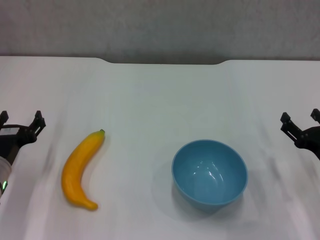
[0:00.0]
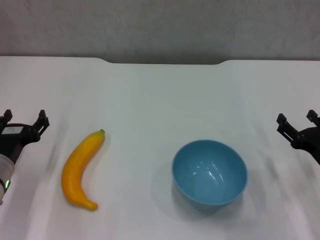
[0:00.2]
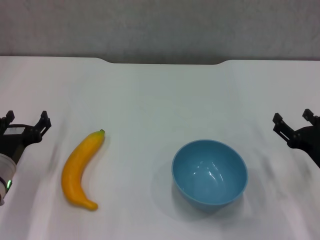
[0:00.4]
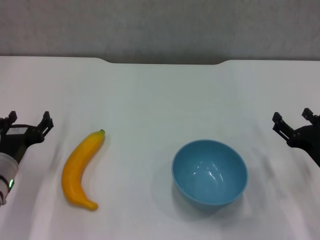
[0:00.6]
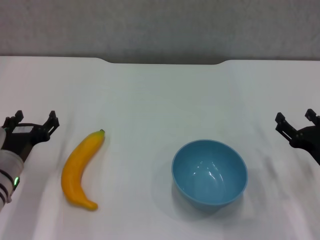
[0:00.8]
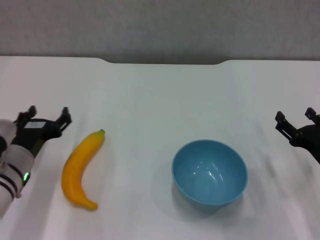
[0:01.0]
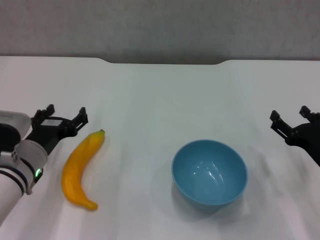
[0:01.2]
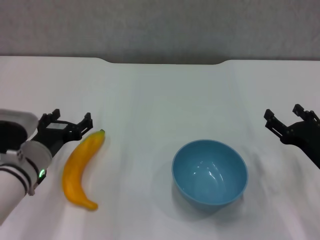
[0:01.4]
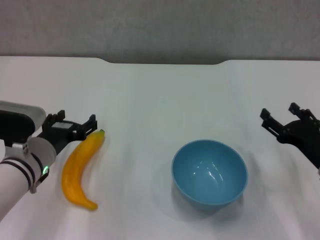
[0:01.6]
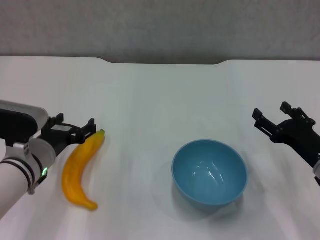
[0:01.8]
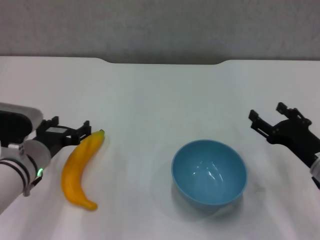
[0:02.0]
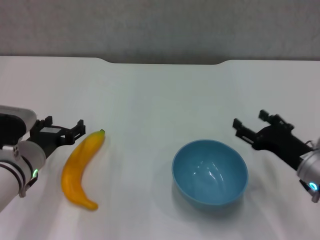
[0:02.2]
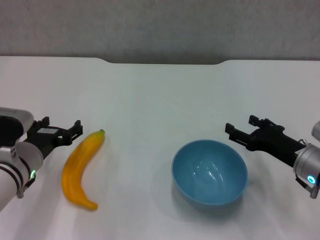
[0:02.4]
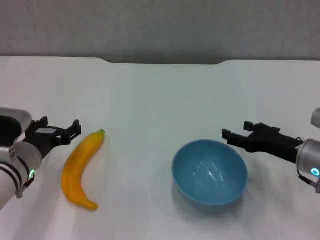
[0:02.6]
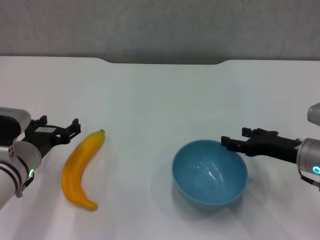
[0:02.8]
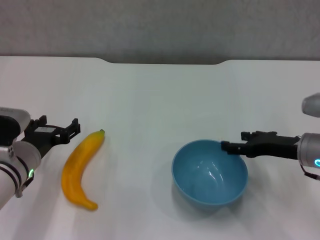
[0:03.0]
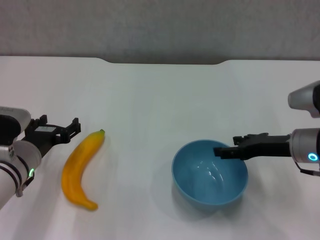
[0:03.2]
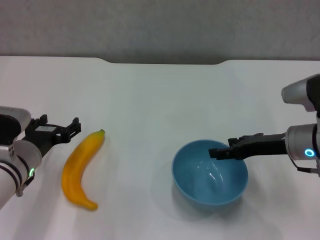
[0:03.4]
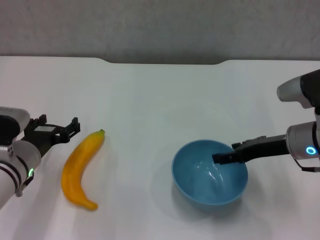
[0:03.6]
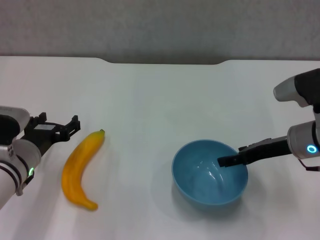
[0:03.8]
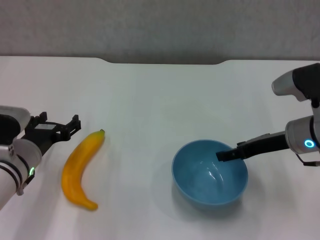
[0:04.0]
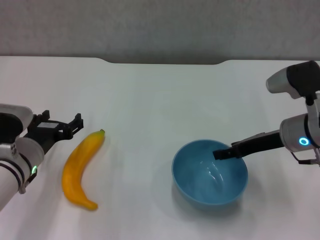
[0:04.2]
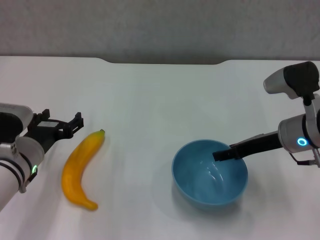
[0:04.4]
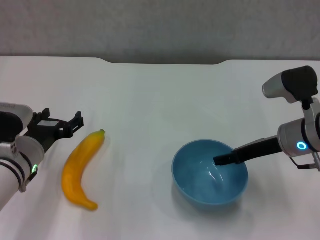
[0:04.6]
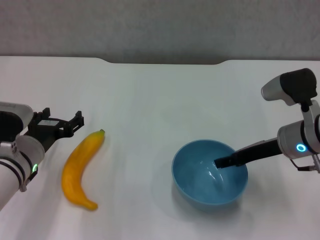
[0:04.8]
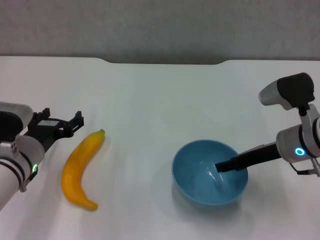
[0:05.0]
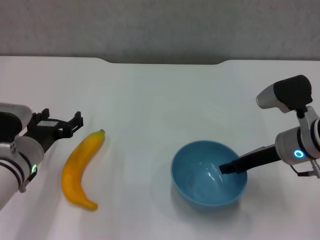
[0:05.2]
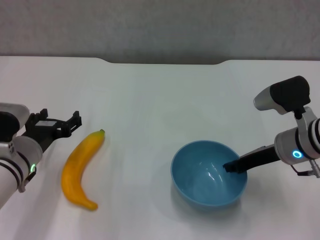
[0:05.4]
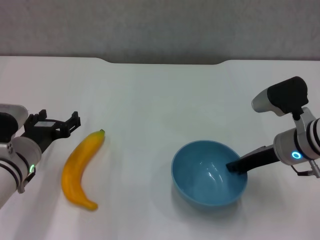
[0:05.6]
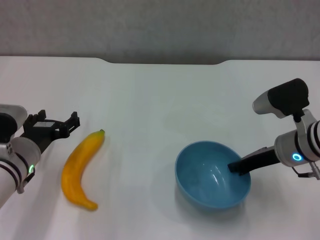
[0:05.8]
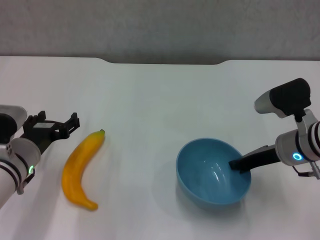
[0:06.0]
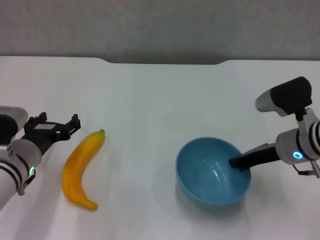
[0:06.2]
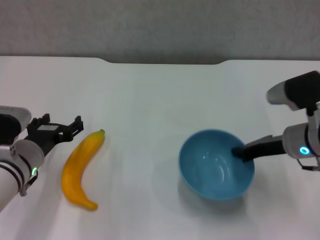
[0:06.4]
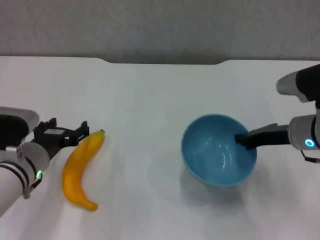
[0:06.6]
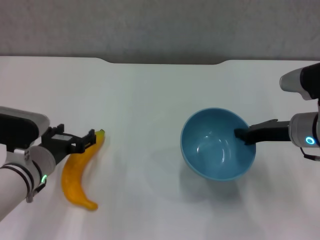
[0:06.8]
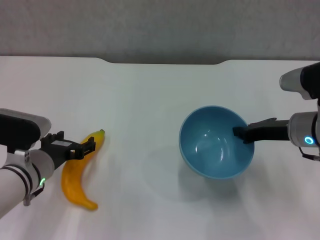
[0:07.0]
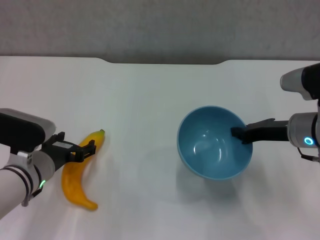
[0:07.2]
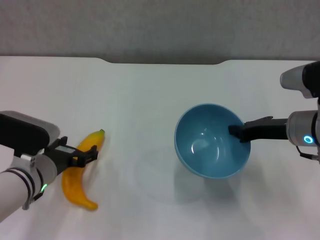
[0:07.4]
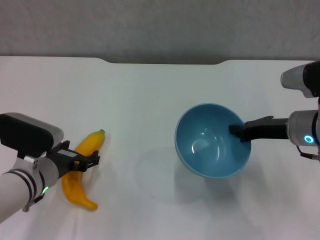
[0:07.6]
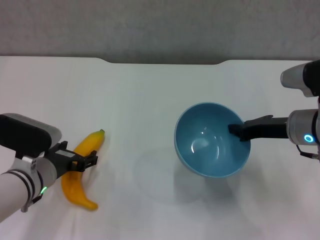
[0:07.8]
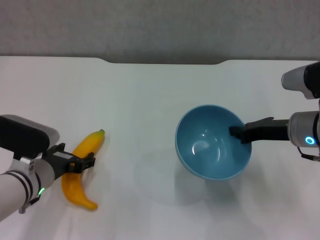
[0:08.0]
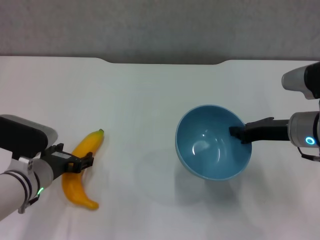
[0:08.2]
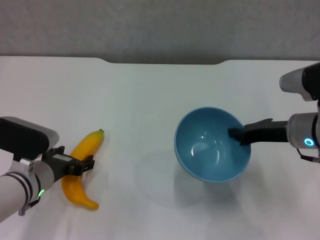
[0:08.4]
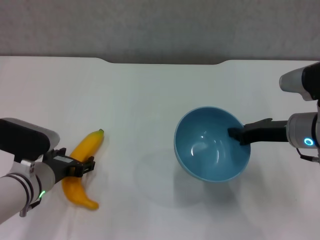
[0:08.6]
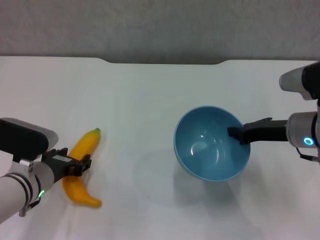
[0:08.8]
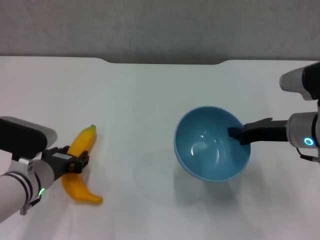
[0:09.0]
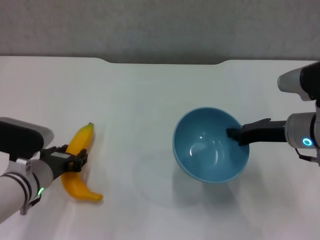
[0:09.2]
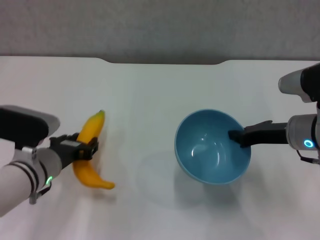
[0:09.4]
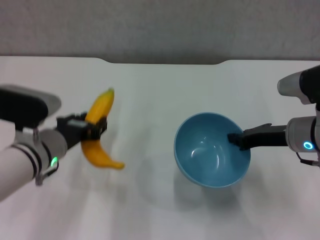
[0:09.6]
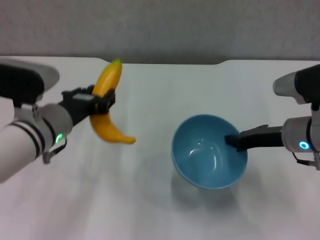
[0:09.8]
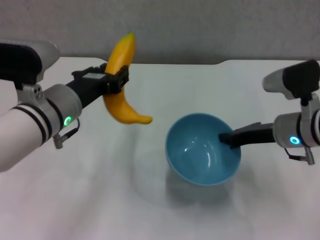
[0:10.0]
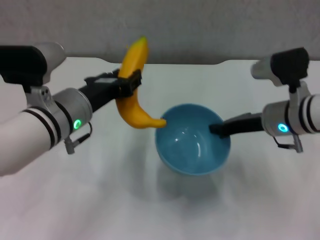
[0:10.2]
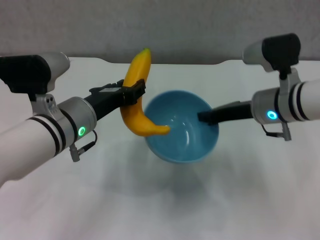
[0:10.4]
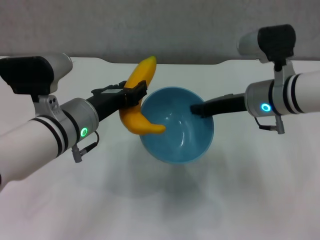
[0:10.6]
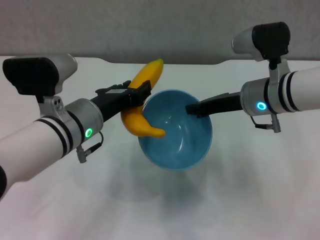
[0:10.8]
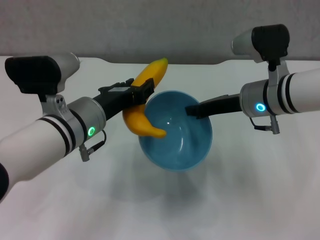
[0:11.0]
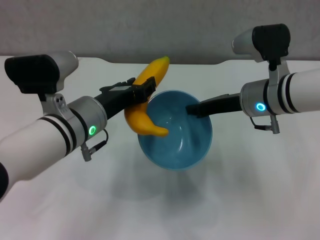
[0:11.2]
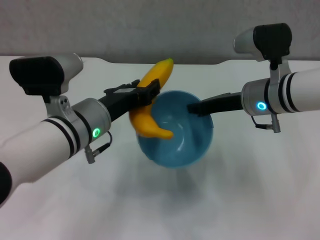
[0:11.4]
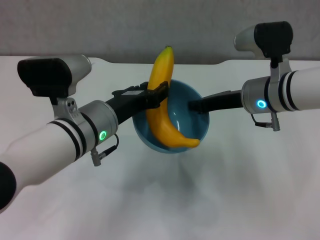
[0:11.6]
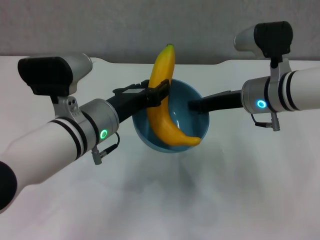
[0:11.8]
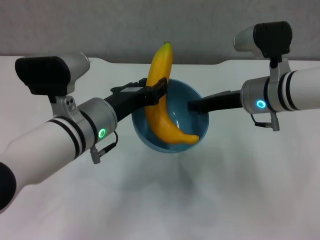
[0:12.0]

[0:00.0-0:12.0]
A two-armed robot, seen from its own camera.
Step, 0:00.0 to 0:05.8: Grasp the blue bowl with right gripper.
Step, 0:06.0 to 0:06.8: Lift the blue bowl with right gripper.
Step, 0:07.0 to 0:09.0: Grasp the banana with left gripper.
0:00.0 to 0:01.6: The left gripper moves to the right, approximately 5 cm.
0:01.6 to 0:03.0: The right gripper shifts about 5 cm forward.
0:03.0 to 0:04.4: The right gripper moves some 5 cm.
0:04.4 to 0:06.0: The right gripper closes up.
0:07.6 to 0:09.0: The left gripper closes its fingers.
0:09.0 to 0:10.4: The left gripper heads upward and to the right, covering about 15 cm, while the right gripper moves to the left, about 5 cm.

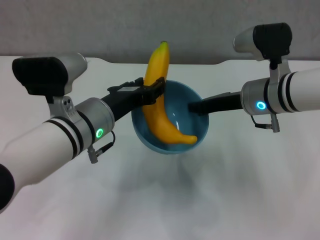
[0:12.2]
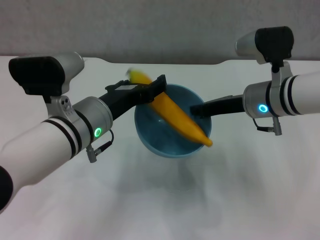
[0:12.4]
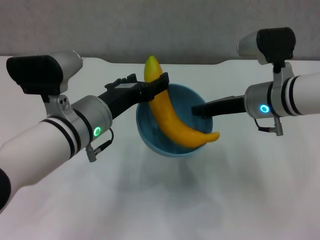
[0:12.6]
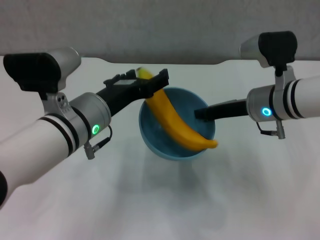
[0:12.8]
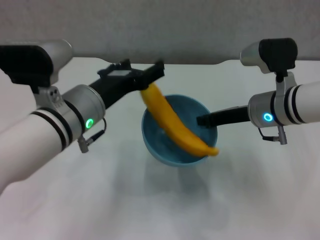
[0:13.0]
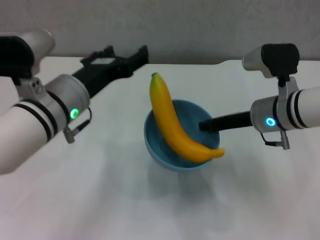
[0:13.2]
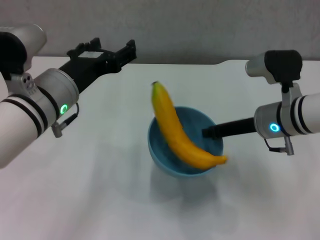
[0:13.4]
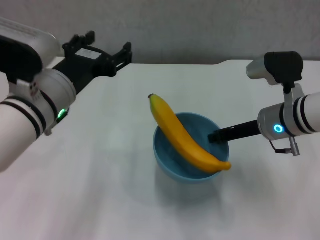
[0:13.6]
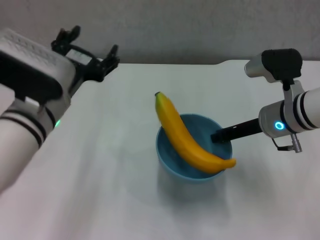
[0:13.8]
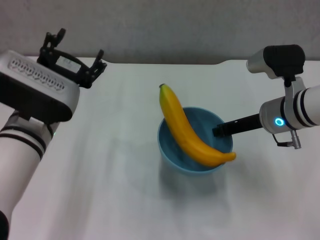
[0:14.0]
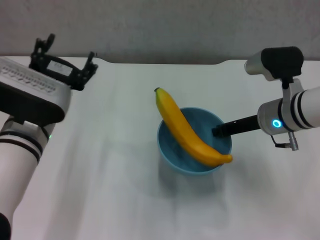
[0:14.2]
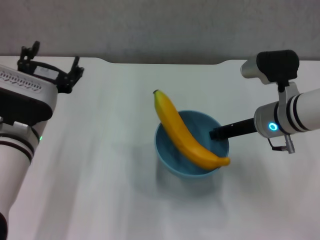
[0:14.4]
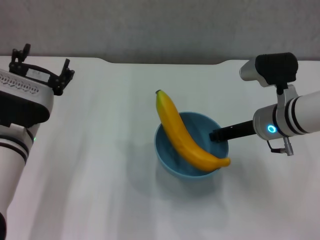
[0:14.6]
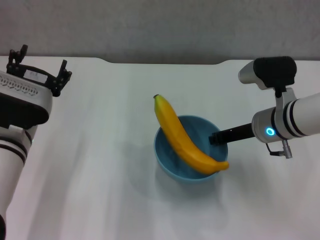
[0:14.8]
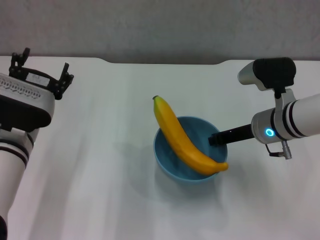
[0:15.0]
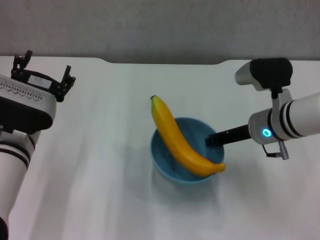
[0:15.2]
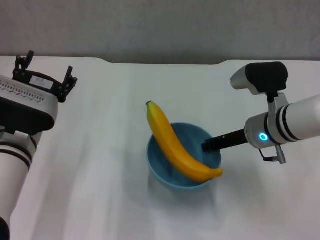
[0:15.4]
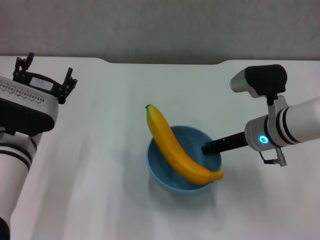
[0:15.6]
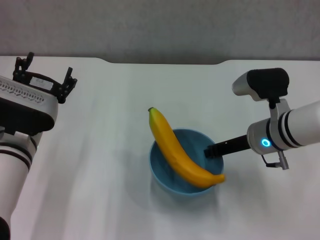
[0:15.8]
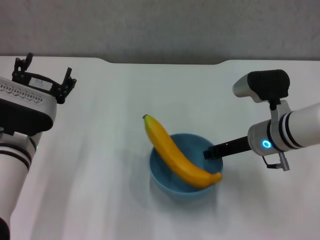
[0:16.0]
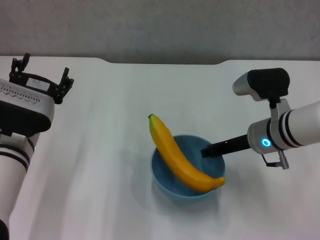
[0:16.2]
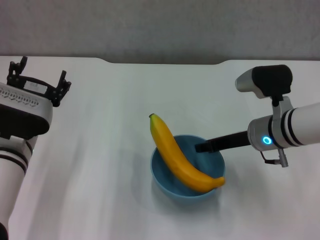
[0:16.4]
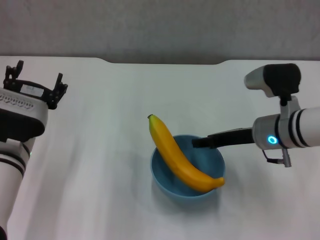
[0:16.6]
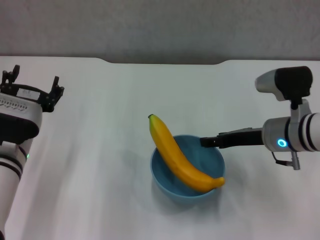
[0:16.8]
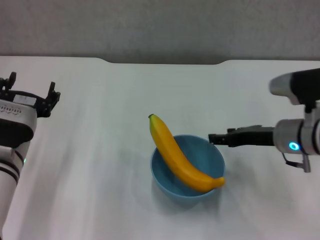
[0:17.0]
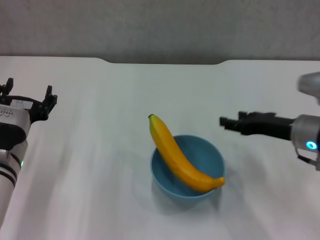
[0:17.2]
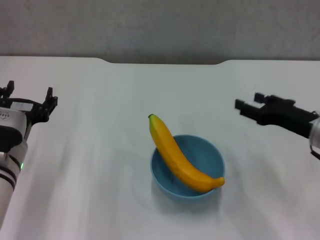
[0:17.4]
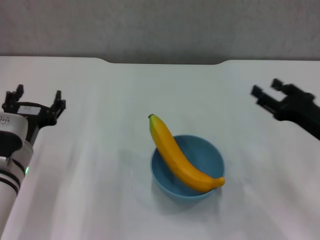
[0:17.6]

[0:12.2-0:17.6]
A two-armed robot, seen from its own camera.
Step, 0:13.0 to 0:16.2: Place the bowl on the table with right gripper.
0:12.2 to 0:13.6: The left gripper moves roughly 5 cm, and opens its fingers.
0:13.6 to 0:15.0: The left gripper shifts roughly 5 cm downward.
0:15.0 to 0:16.2: The grippers make only small movements.
0:16.2 to 0:17.6: The right gripper heads to the right and backward, covering about 10 cm, and opens.
